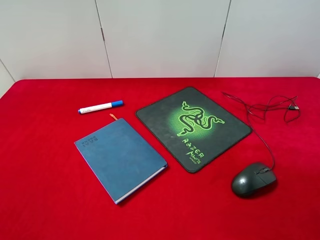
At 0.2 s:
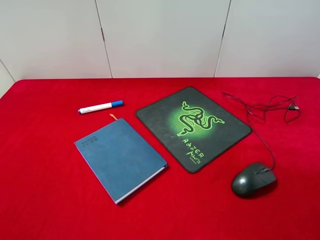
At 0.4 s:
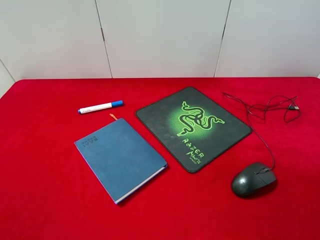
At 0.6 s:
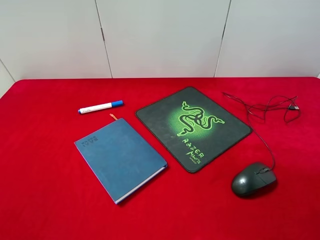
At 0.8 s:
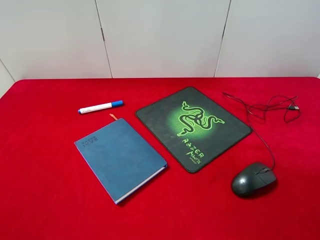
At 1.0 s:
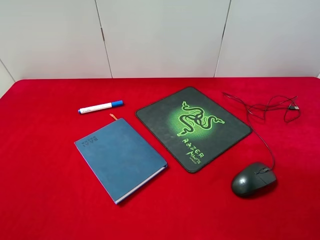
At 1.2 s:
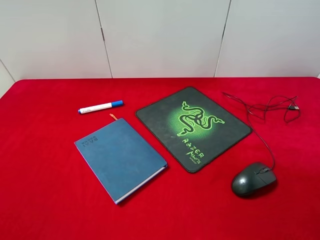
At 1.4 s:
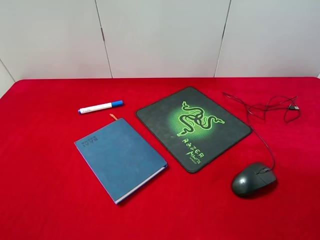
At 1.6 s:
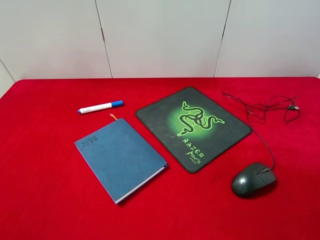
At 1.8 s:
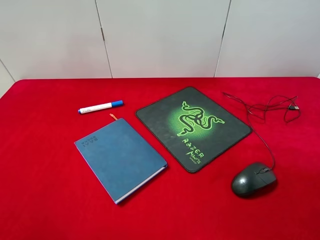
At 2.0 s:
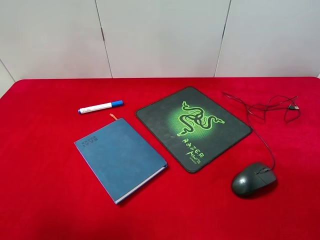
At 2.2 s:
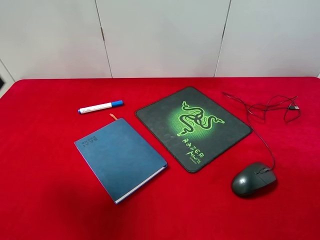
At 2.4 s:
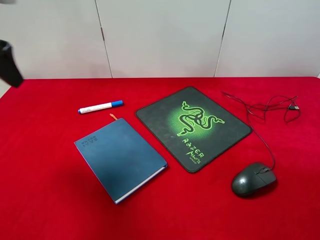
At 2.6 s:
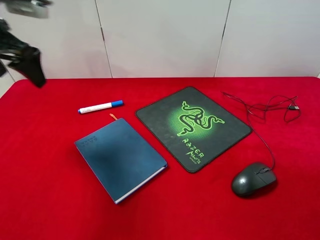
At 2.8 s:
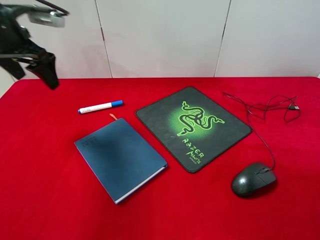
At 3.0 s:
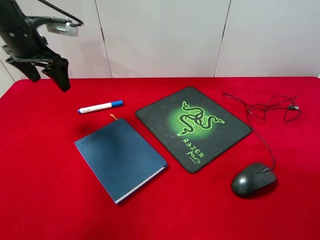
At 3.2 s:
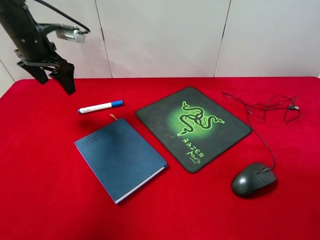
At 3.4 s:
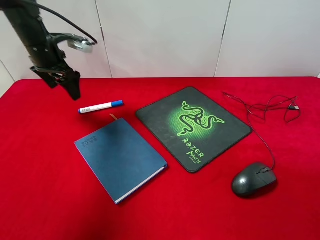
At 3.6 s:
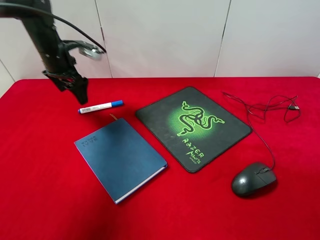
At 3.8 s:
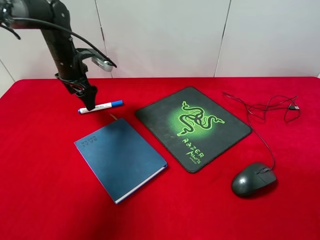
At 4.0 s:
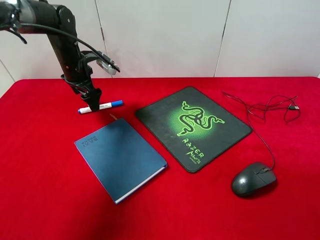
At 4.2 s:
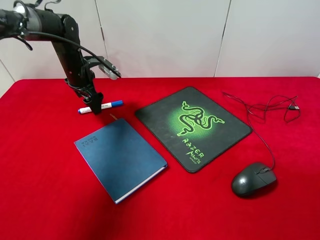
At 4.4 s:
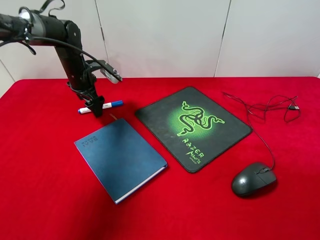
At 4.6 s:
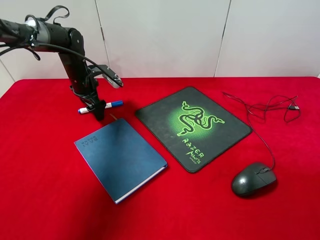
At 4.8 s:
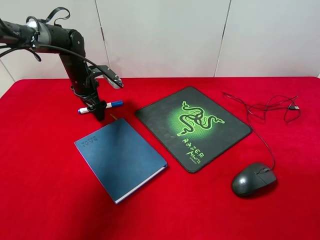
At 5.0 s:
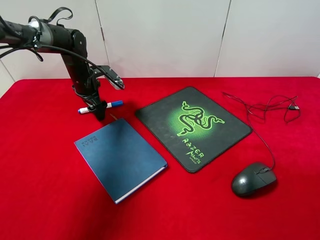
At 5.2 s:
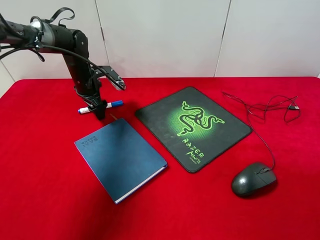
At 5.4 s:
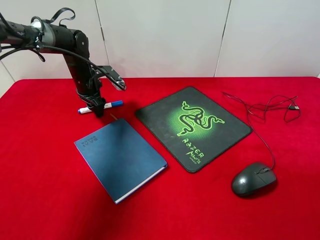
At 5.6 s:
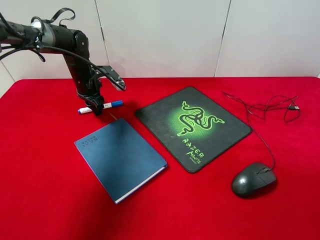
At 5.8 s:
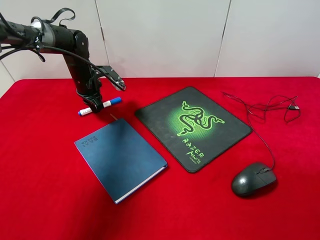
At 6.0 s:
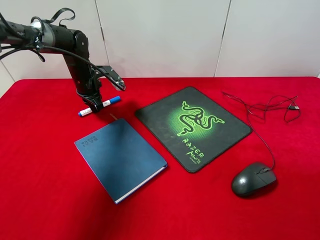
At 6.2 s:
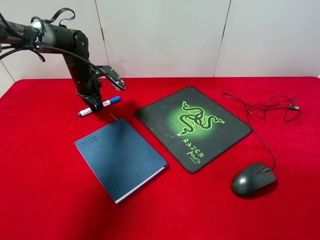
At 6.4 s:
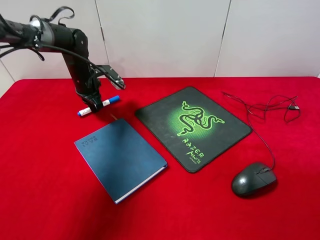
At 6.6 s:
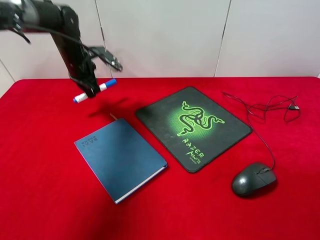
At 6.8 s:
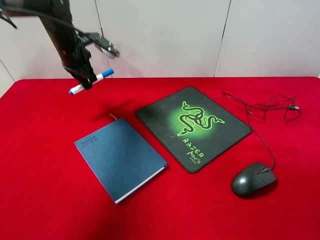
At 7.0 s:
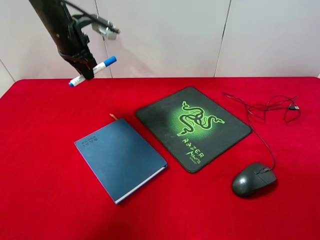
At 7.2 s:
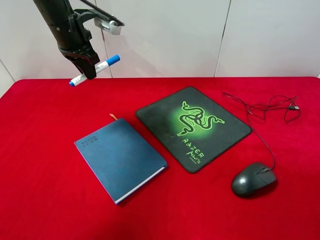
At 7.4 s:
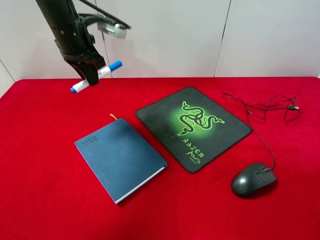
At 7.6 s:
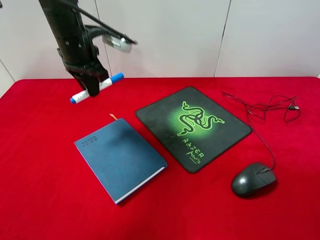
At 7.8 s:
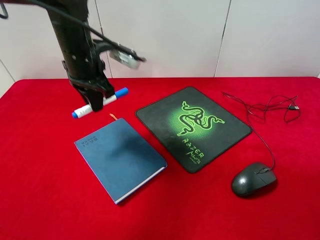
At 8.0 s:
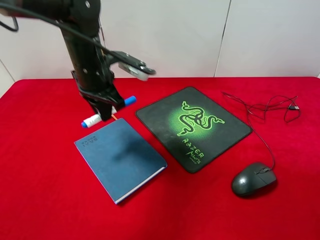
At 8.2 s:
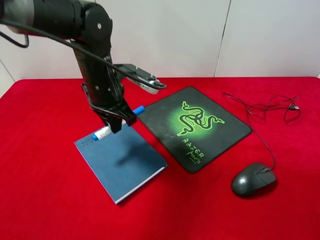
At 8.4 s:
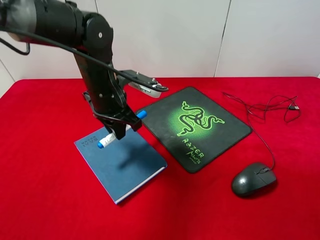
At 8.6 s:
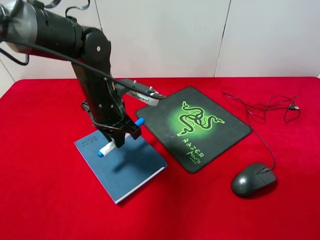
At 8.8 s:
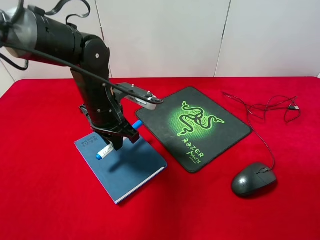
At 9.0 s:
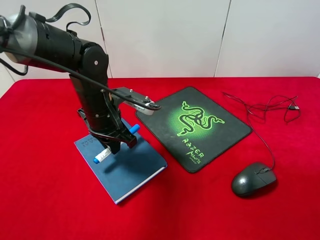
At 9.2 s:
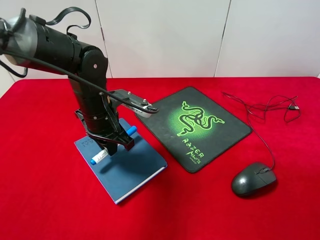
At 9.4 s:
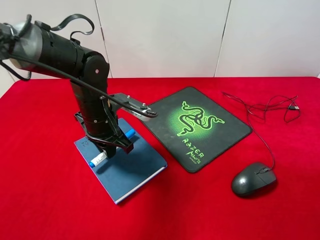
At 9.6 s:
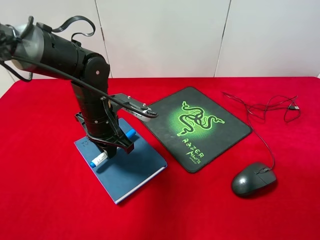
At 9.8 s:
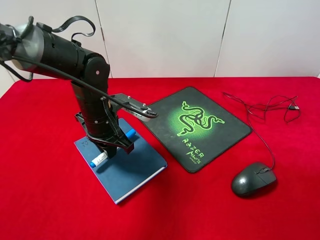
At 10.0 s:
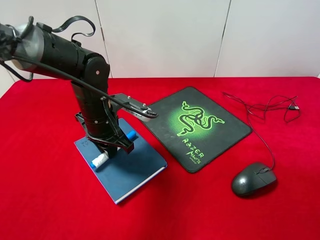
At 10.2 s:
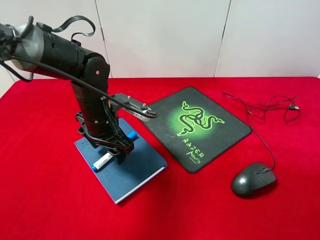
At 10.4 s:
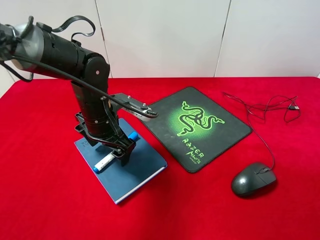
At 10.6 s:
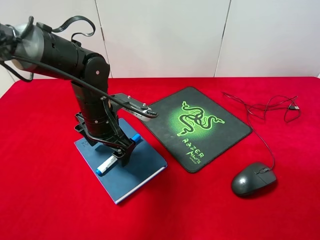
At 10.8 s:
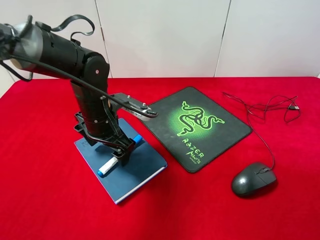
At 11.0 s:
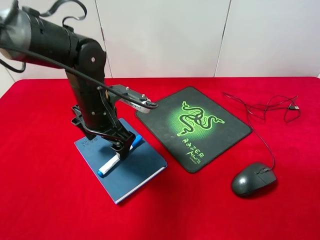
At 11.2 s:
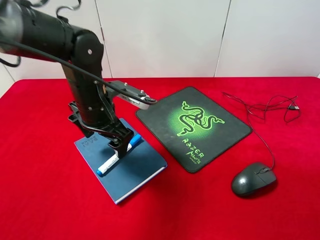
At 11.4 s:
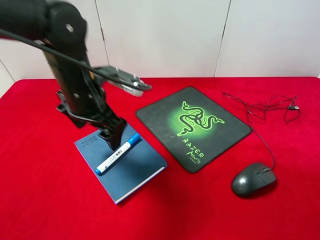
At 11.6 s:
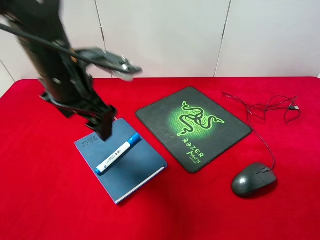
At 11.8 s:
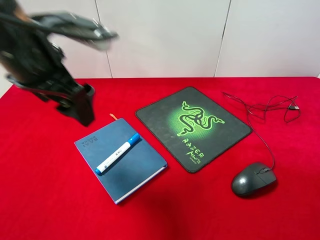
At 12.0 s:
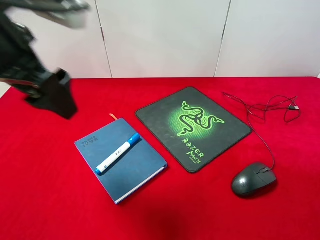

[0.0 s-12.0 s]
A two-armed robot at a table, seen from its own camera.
Step, 0.0 to 6.4 s: Pick up the marker pen with left gripper.
Step, 6.6 to 10.4 s: Place the marker pen on the notebook with left gripper.
1.6 to 3.0 s: The left gripper is displaced forward by some 35 cm.
3.0 to 4.4 s: The left gripper is displaced downward, forward and to the right by approximately 15 cm.
4.4 to 6.0 s: The left gripper closes.
6.0 to 7.6 s: The left gripper shifts about 20 cm upward, backward and to the right.
7.6 to 9.0 s: The left gripper heads downward and backward, covering approximately 15 cm.
9.0 to 10.4 s: The left gripper opens up.
10.4 to 12.0 s: The left gripper goes about 25 cm upward and backward.

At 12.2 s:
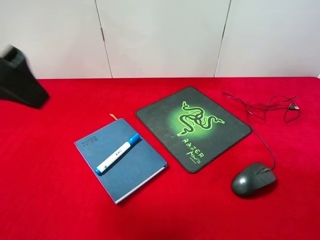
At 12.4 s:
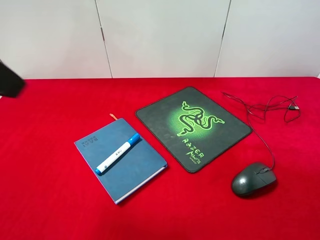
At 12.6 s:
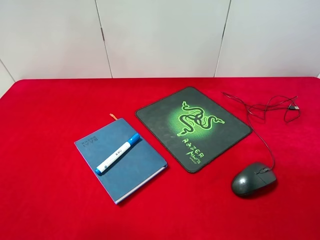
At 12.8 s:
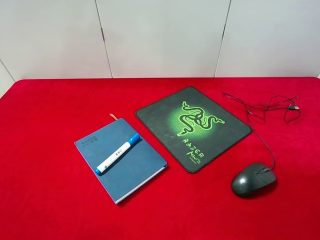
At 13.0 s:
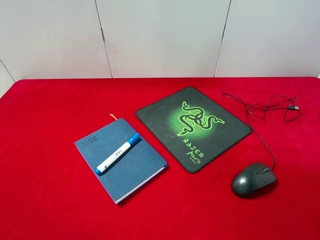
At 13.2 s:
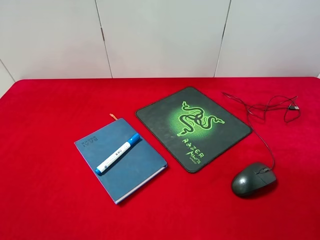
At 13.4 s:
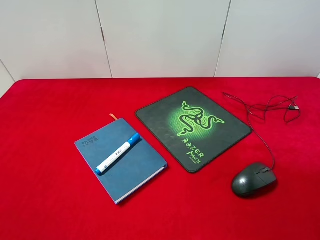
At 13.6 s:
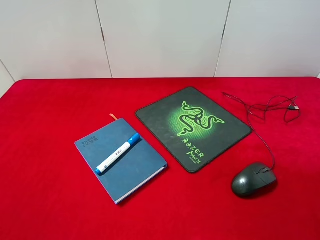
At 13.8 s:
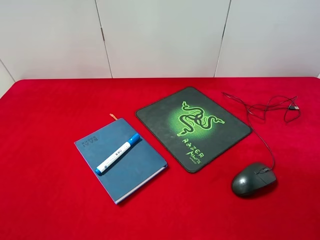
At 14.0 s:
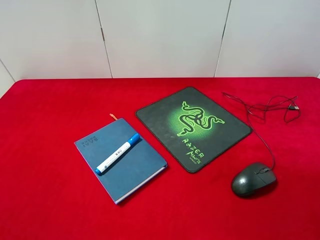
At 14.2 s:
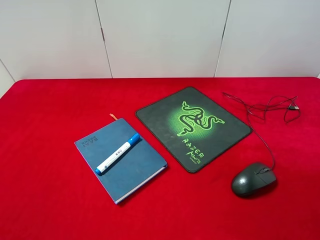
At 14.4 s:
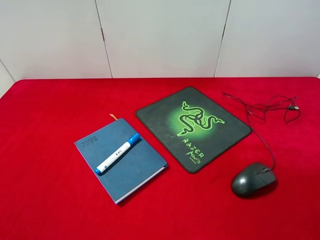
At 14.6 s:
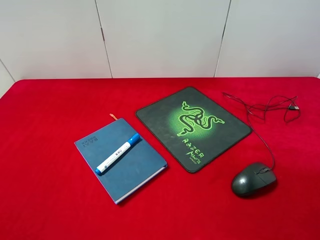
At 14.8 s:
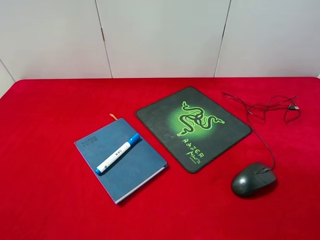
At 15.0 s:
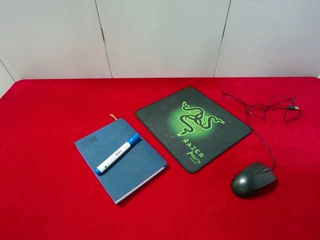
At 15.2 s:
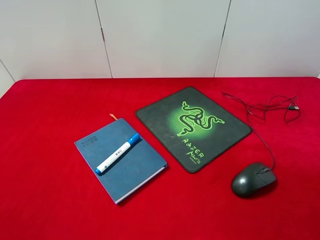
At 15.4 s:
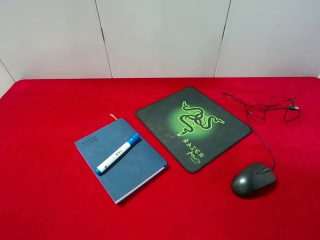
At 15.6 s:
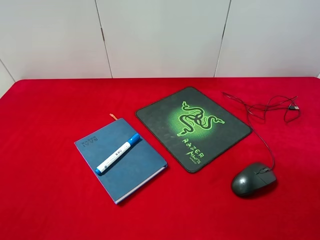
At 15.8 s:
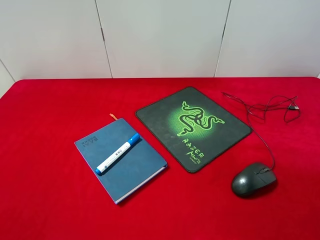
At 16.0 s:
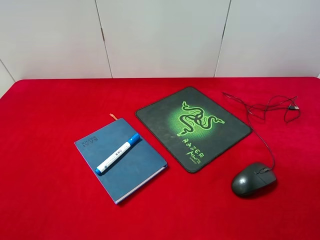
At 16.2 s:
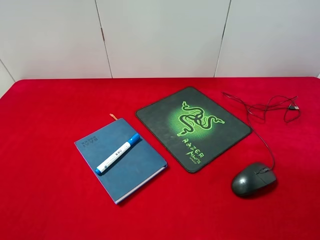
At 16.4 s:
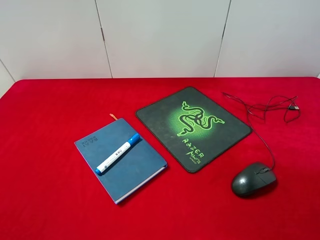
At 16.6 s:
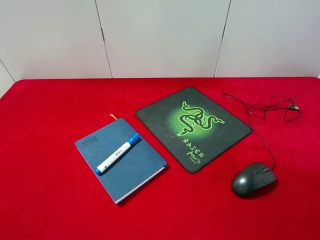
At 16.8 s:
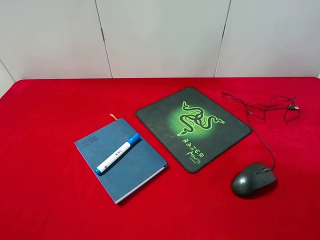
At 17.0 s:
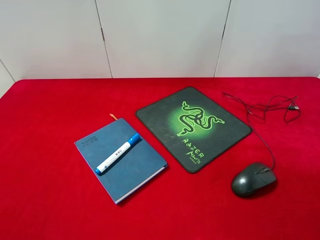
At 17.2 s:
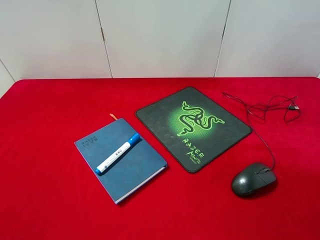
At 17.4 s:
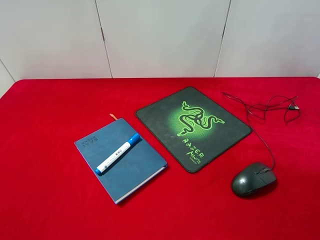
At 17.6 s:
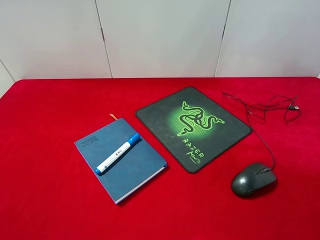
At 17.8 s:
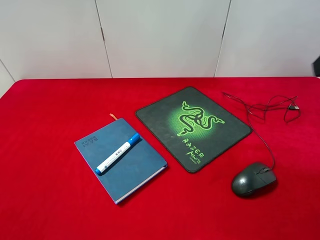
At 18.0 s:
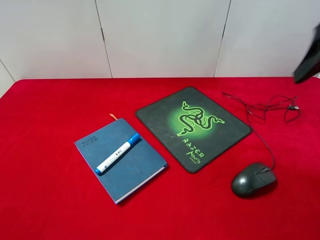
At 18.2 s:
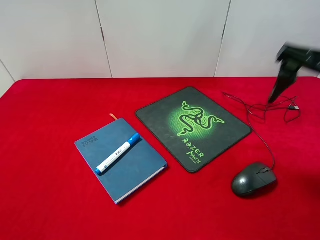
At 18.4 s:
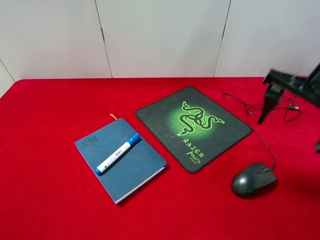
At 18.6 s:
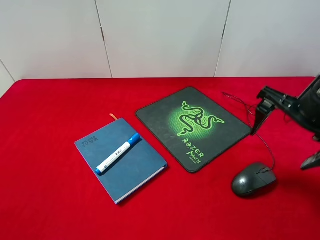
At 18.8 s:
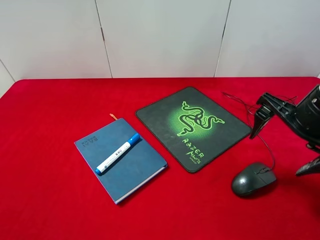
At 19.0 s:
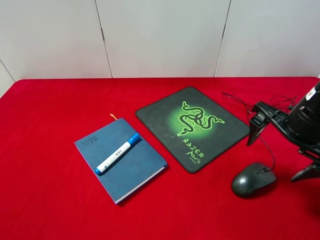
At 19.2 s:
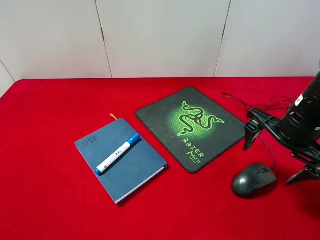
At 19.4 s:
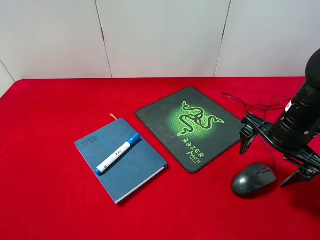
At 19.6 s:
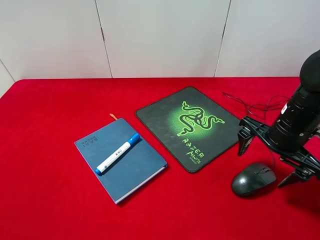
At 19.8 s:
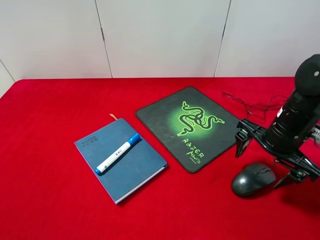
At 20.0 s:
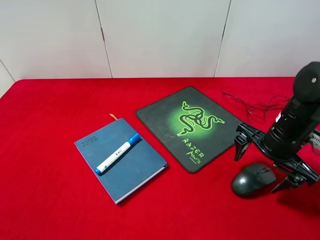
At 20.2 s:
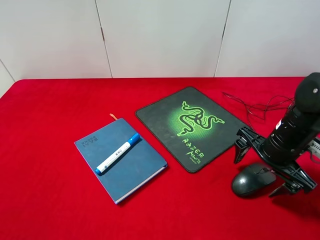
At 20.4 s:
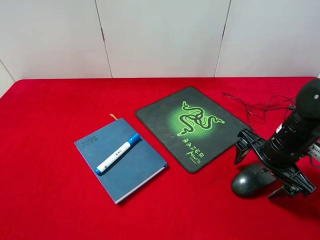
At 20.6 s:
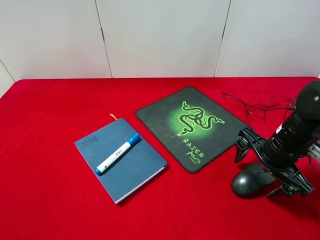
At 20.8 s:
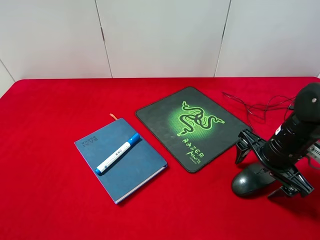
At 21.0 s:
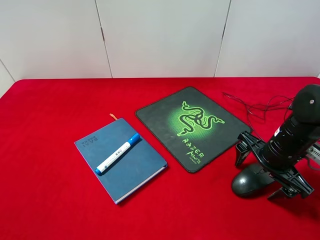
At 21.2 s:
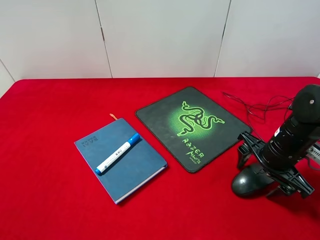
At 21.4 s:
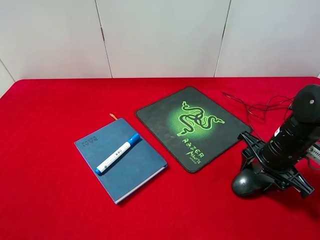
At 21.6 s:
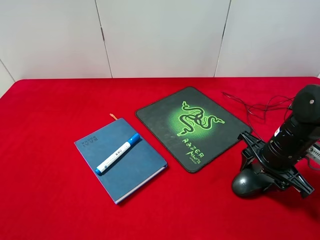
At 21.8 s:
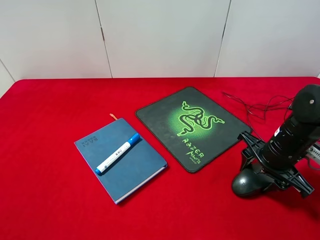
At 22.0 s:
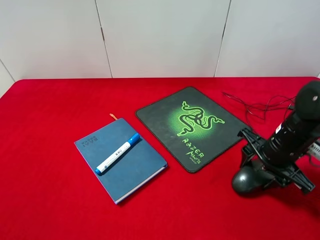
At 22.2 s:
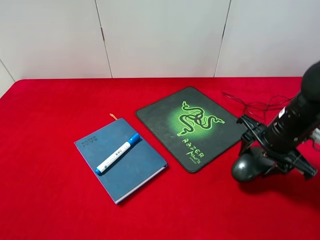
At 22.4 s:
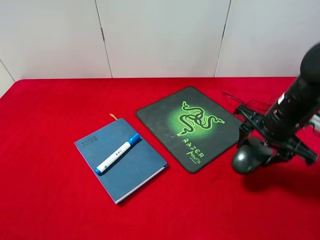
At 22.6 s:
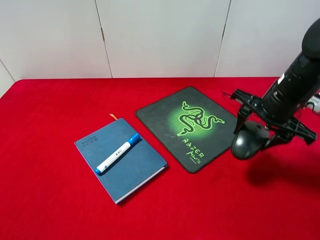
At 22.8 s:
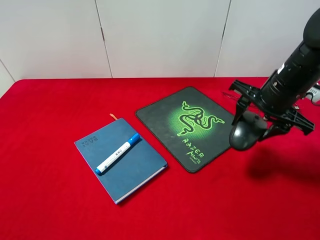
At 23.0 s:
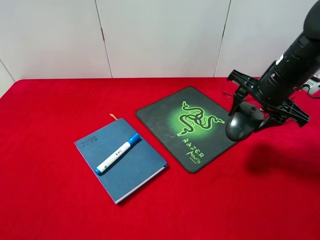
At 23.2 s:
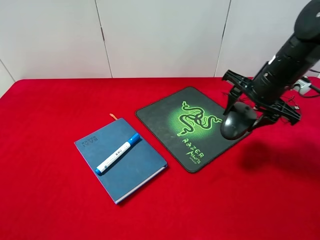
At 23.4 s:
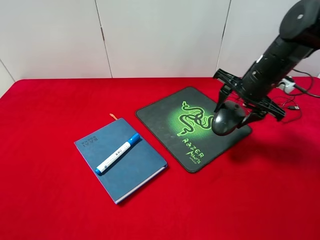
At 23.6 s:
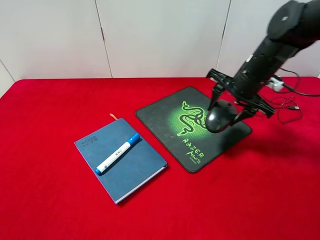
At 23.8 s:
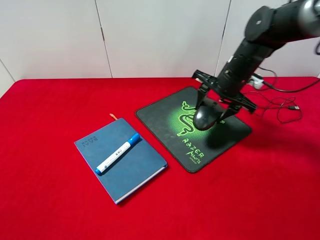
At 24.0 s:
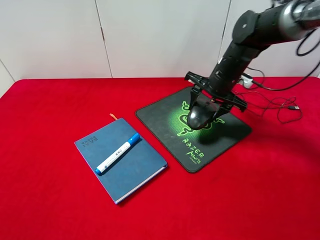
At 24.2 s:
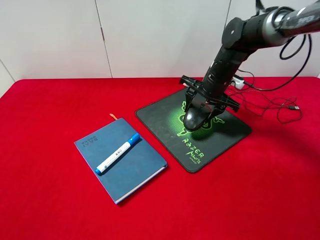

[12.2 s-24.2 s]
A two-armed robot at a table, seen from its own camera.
Step, 12.2 to 22.2 s: Pick up the mouse with right gripper.
12.2 to 13.8 s: The left gripper is displaced backward, to the left and downward by approximately 20 cm.
16.6 to 18.2 s: The right gripper goes about 20 cm forward.
18.2 to 19.8 s: The right gripper shifts roughly 15 cm downward.
19.8 to 21.2 s: The right gripper closes.
21.2 to 22.6 s: The right gripper shifts roughly 10 cm upward.
22.6 to 24.2 s: The right gripper heads forward, to the left and downward, covering roughly 15 cm.
